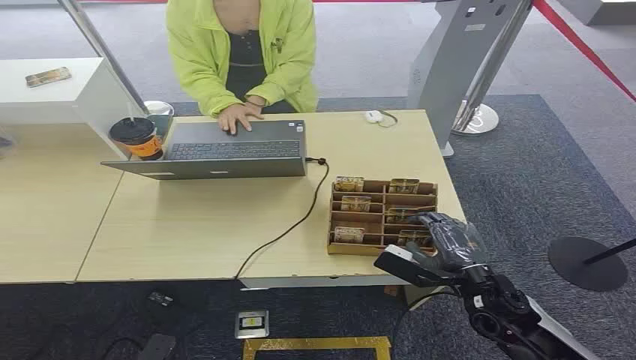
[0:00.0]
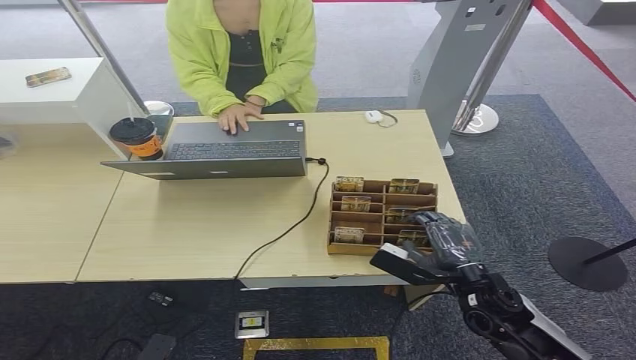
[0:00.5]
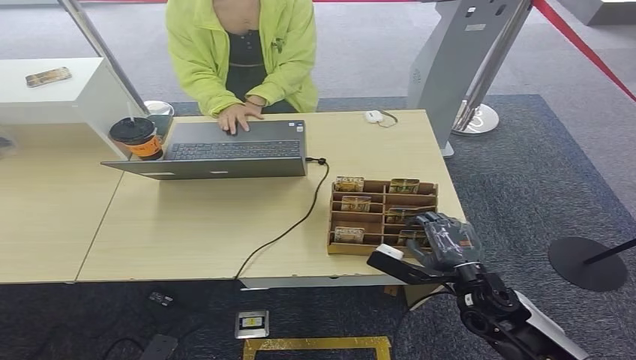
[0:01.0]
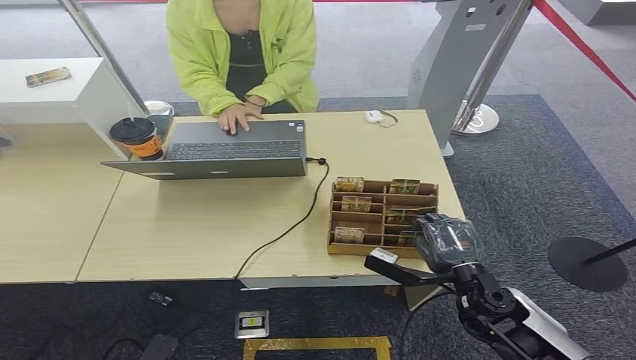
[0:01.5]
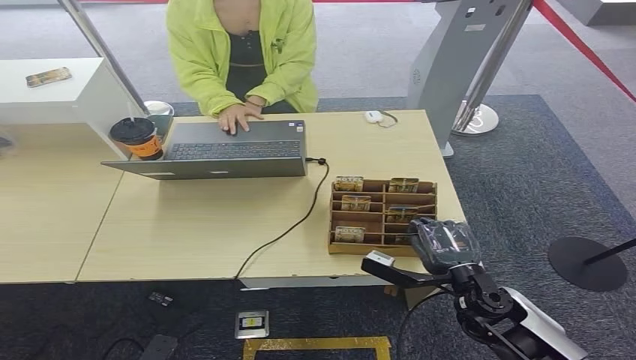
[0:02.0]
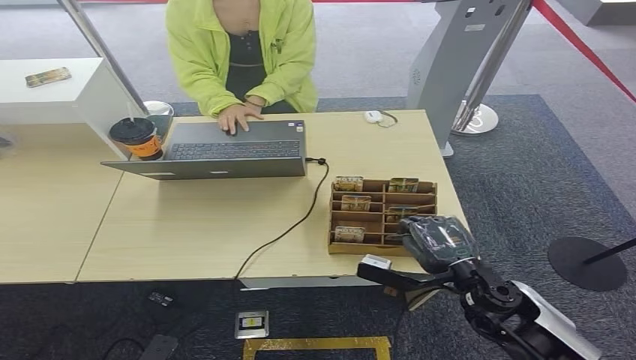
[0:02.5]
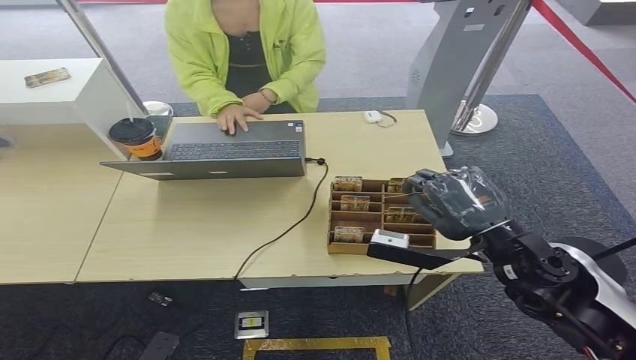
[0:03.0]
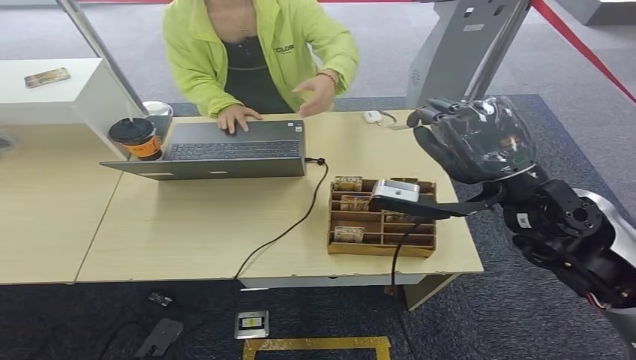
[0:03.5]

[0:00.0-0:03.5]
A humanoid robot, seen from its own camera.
Step, 0:00.0 to 0:02.5: Pick up the room card from the card holder.
Step, 0:03.0 to 0:03.5: Hand the room card to the target.
0:02.0 to 0:03.5: The right hand travels upward by some 25 cm.

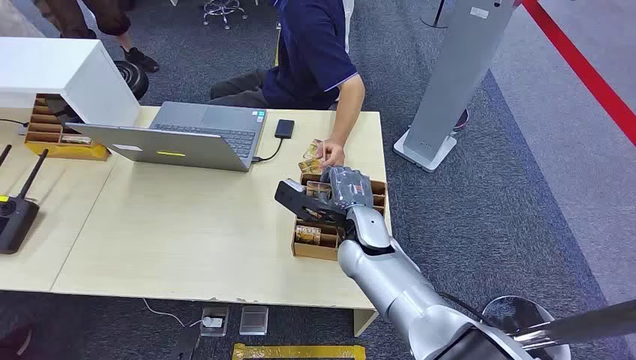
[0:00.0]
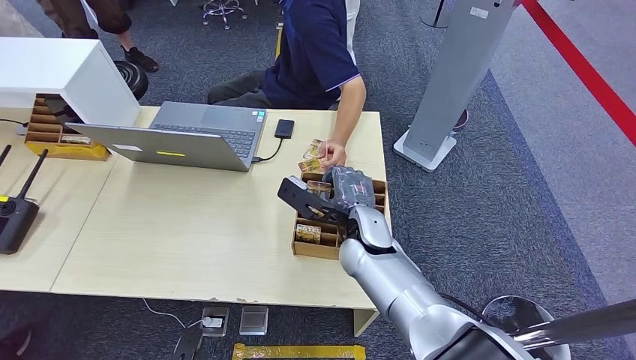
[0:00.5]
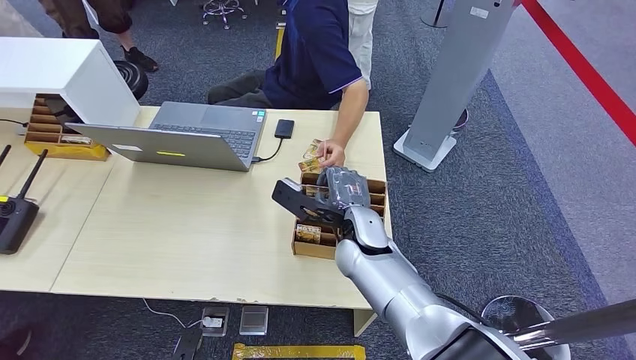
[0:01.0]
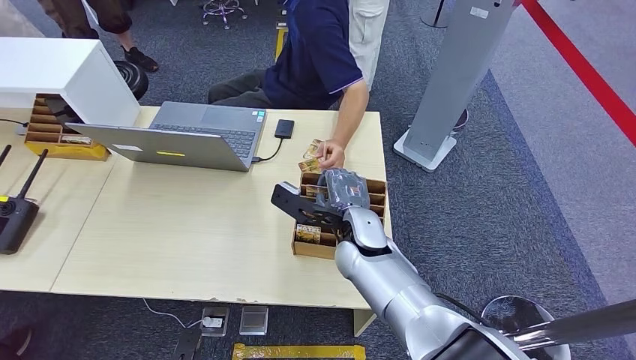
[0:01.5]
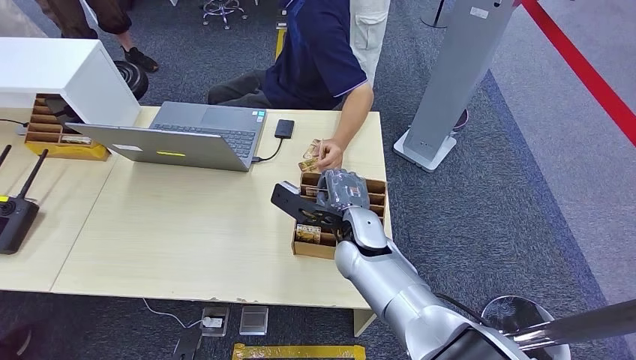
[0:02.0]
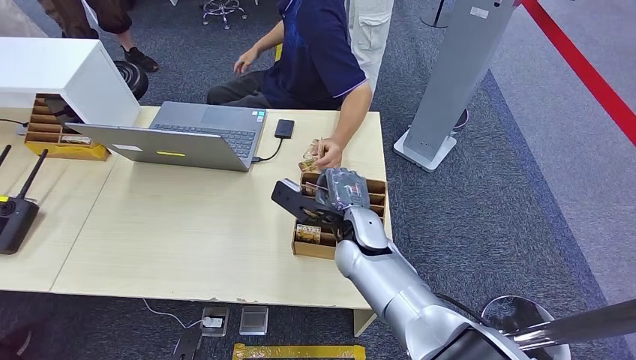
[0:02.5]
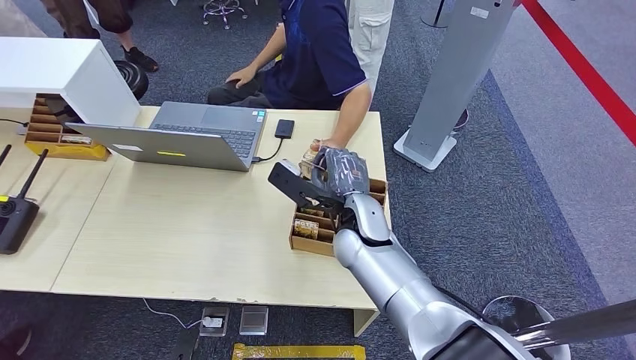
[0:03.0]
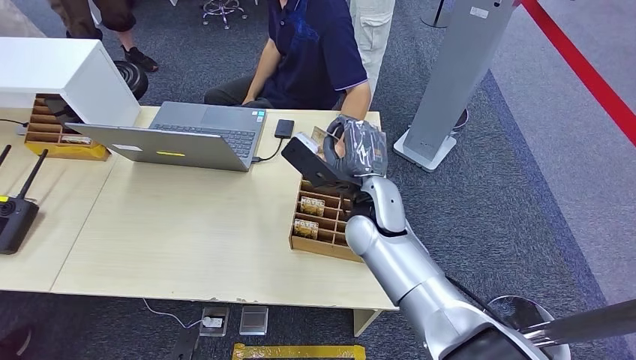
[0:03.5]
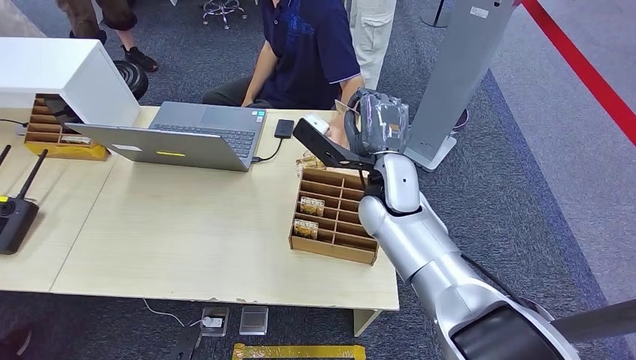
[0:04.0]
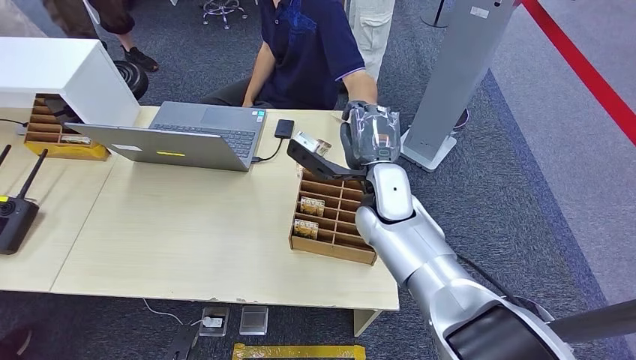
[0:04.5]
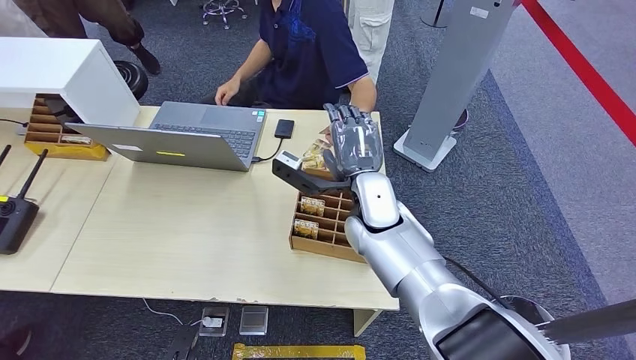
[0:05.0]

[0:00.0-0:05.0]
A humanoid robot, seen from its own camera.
Step, 0:00.0 to 0:02.5: Pick up the room card from the card holder.
Step, 0:03.5 to 0:05.0: Hand the room card to the target.
0:02.5 to 0:05.0: The right hand is displaced upward by approximately 5 cm.

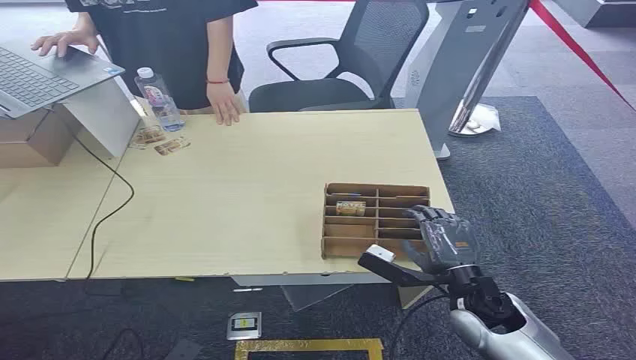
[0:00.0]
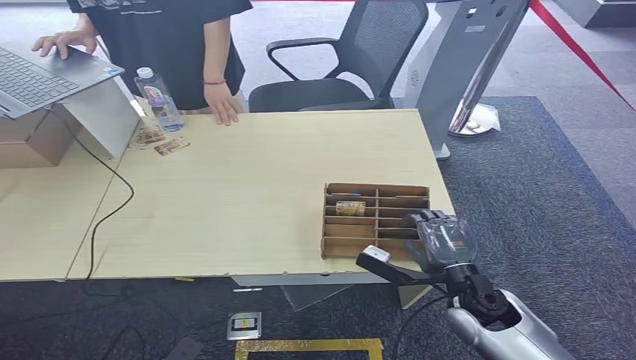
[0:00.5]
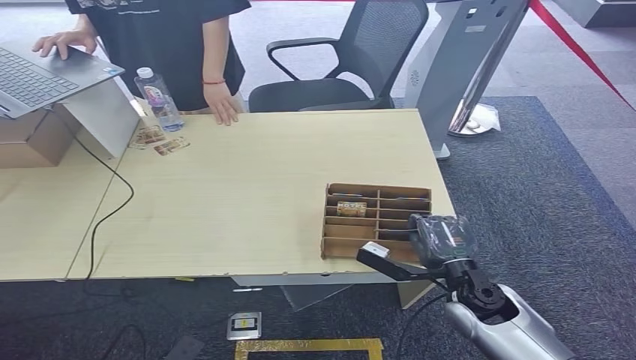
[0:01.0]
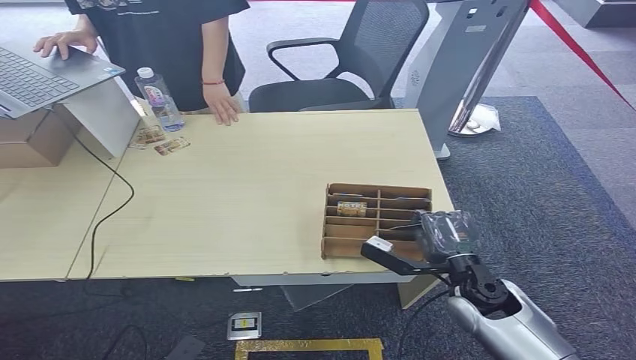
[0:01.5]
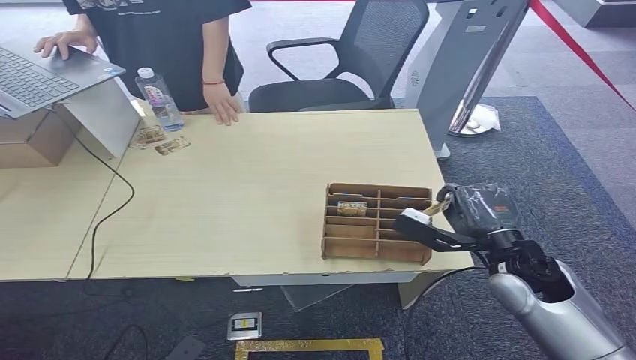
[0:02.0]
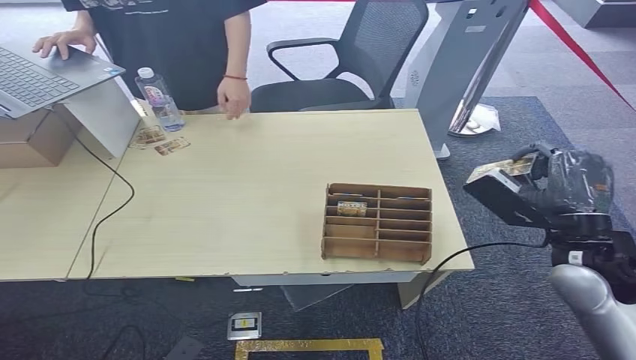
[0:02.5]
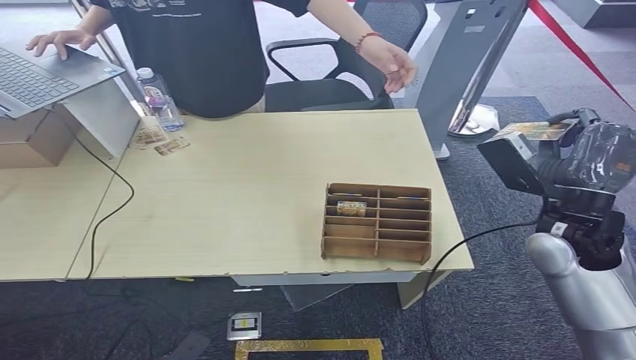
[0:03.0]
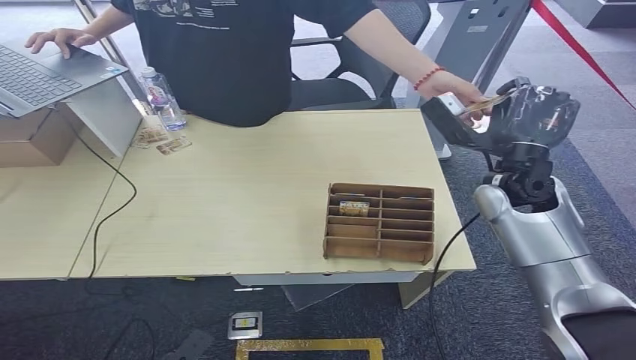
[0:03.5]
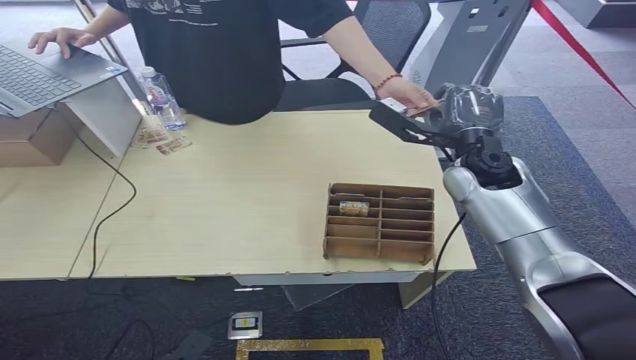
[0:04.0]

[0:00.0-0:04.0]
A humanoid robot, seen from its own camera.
Step, 0:00.0 to 0:02.0: Pick up the room card from the card holder.
Step, 0:02.5 to 0:04.0: Hand the room card to the target.
